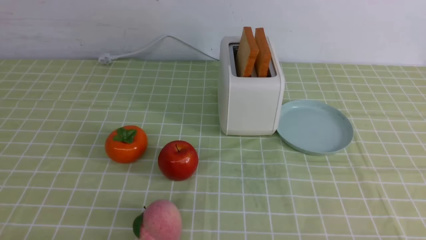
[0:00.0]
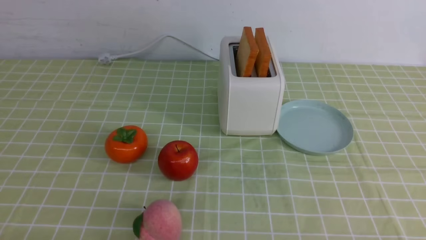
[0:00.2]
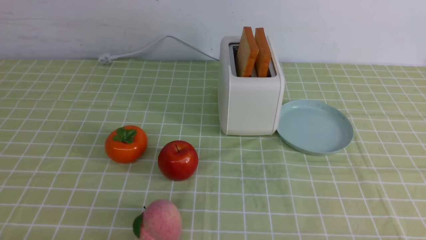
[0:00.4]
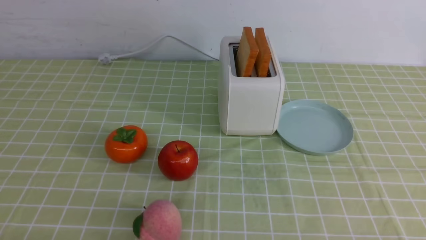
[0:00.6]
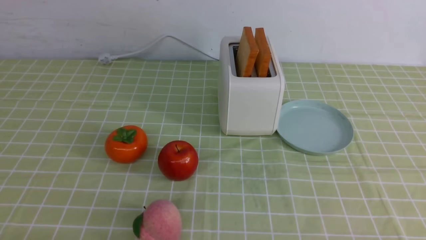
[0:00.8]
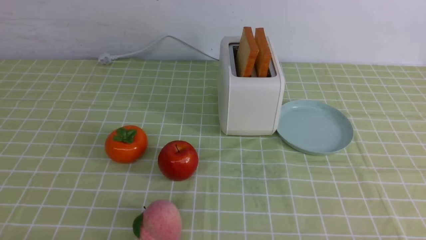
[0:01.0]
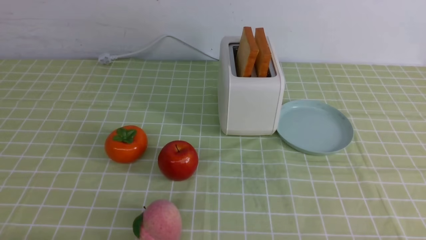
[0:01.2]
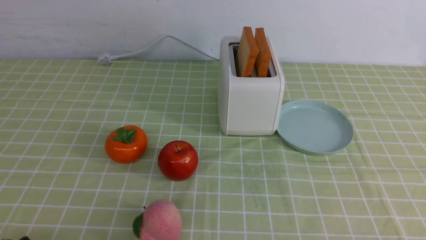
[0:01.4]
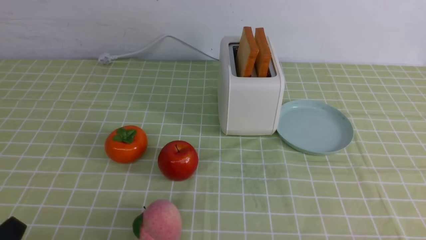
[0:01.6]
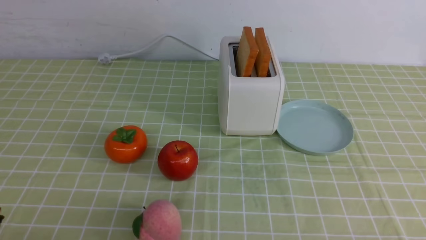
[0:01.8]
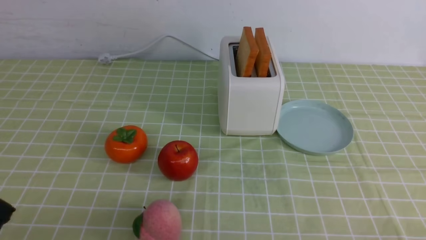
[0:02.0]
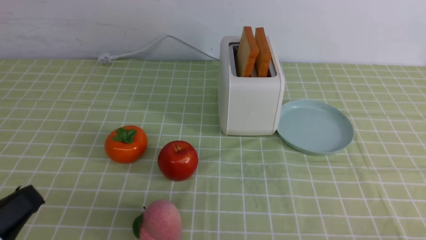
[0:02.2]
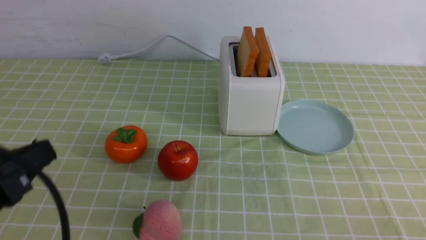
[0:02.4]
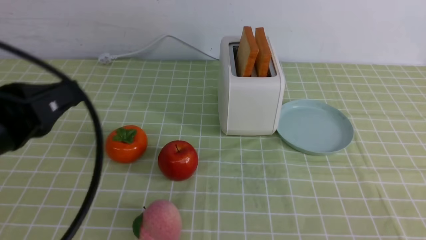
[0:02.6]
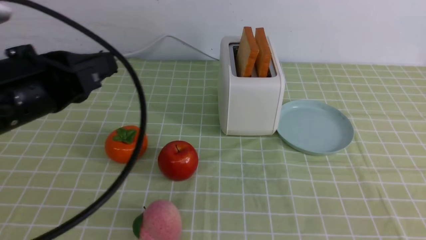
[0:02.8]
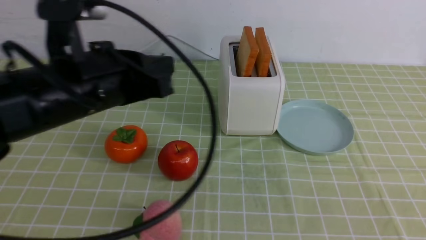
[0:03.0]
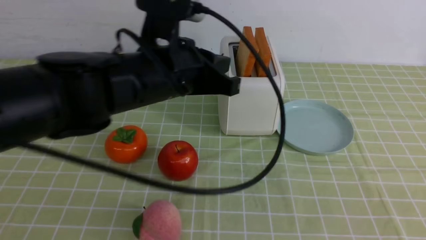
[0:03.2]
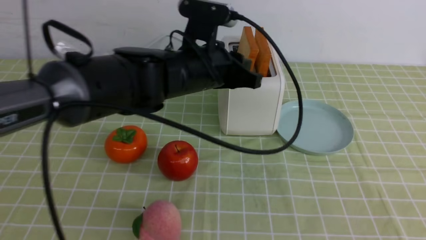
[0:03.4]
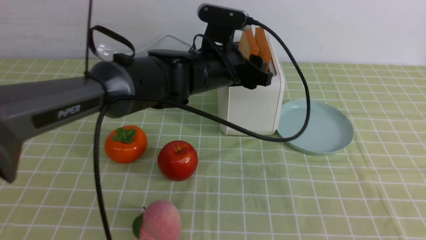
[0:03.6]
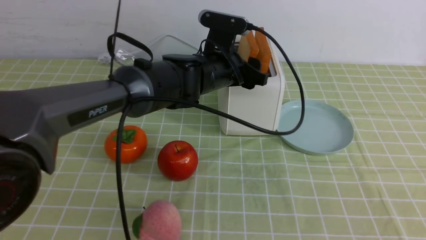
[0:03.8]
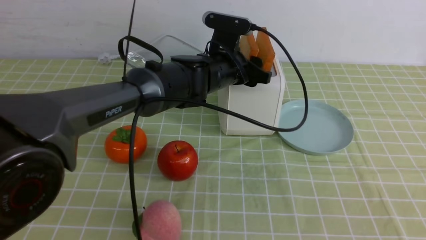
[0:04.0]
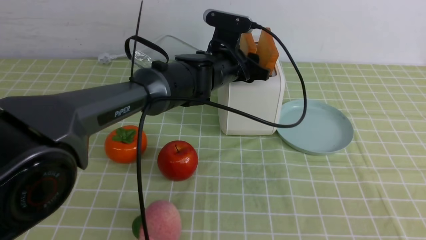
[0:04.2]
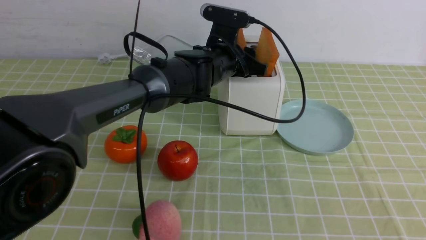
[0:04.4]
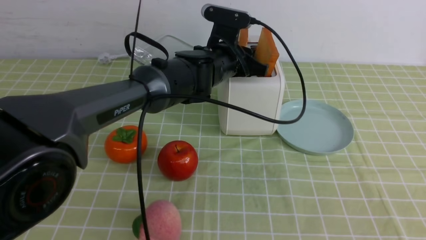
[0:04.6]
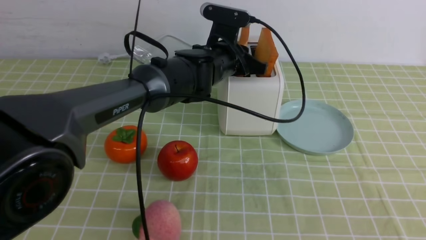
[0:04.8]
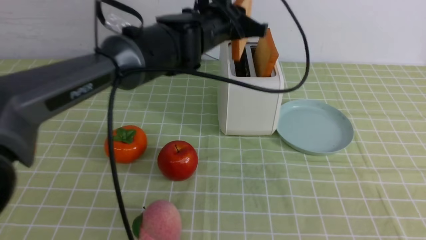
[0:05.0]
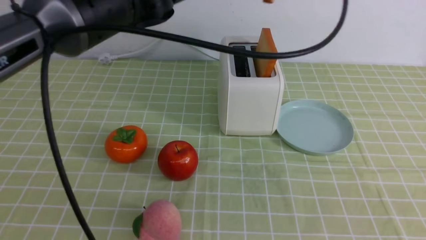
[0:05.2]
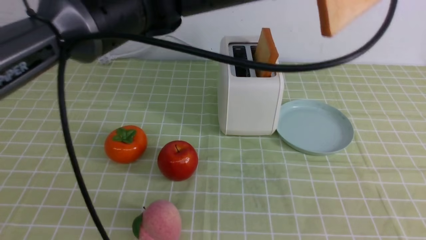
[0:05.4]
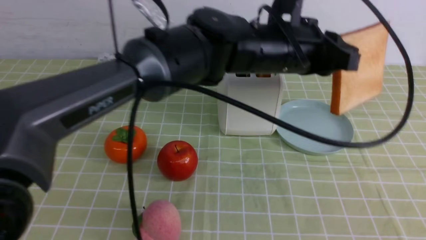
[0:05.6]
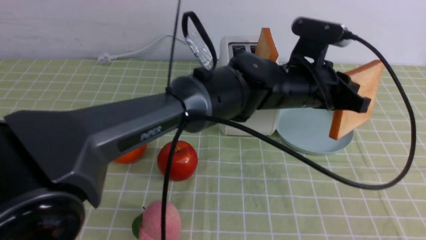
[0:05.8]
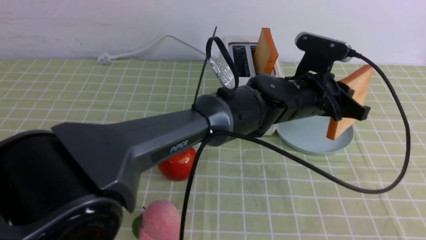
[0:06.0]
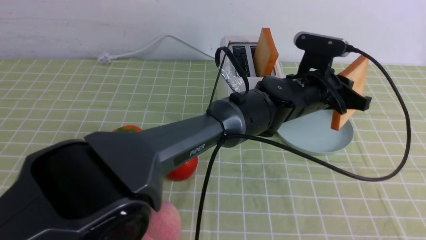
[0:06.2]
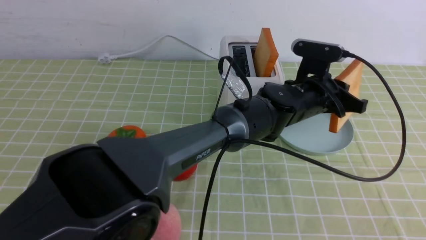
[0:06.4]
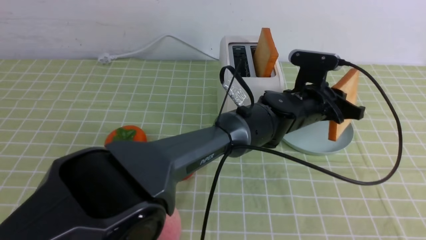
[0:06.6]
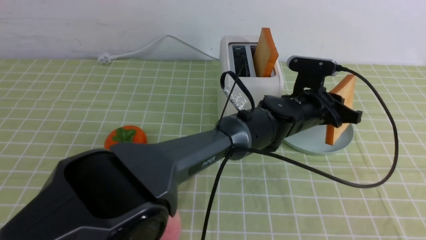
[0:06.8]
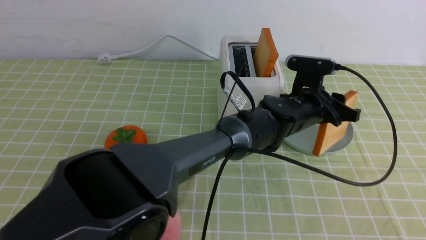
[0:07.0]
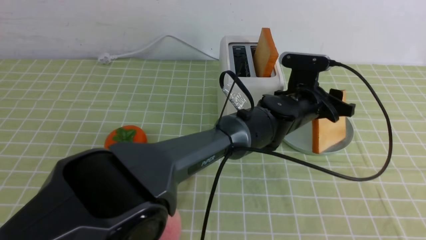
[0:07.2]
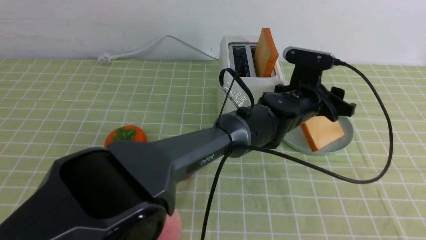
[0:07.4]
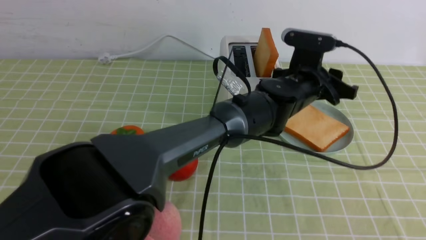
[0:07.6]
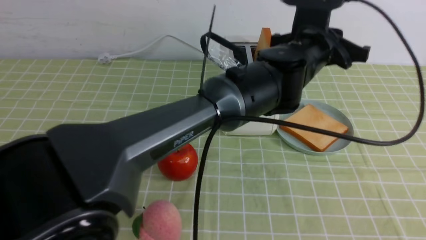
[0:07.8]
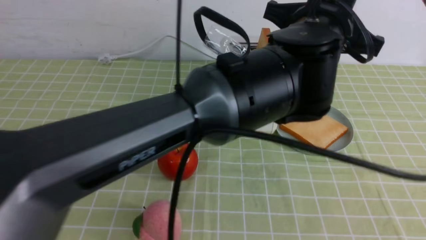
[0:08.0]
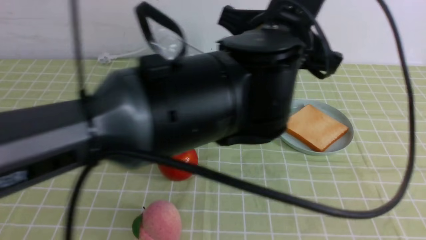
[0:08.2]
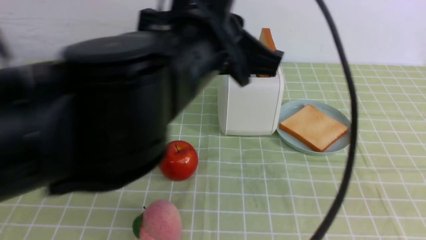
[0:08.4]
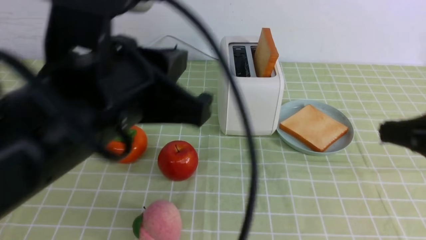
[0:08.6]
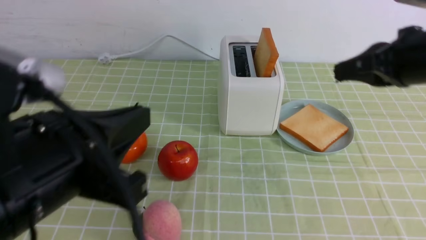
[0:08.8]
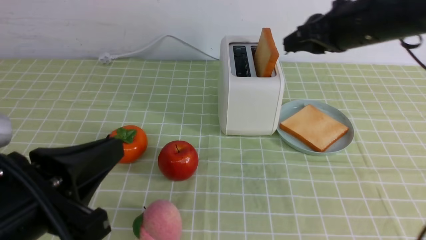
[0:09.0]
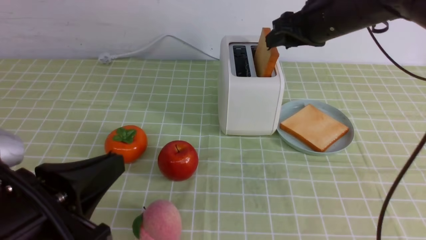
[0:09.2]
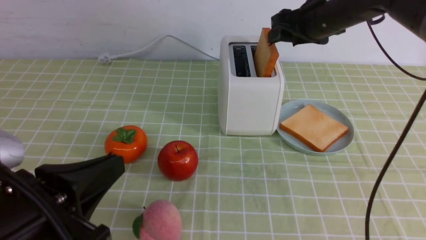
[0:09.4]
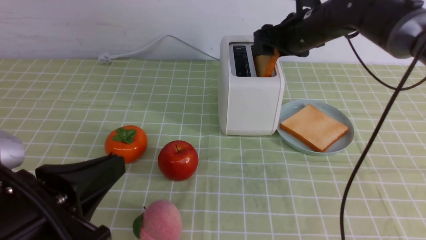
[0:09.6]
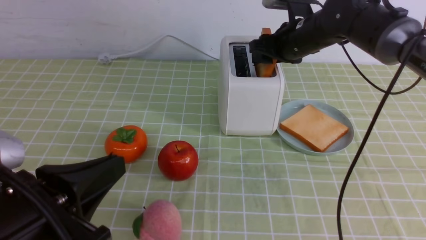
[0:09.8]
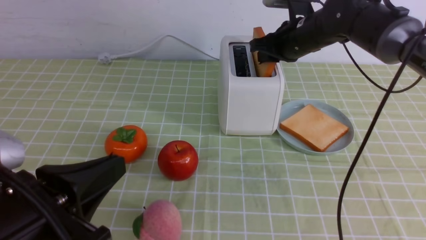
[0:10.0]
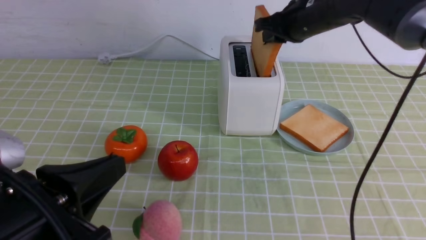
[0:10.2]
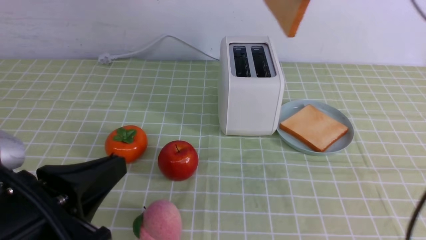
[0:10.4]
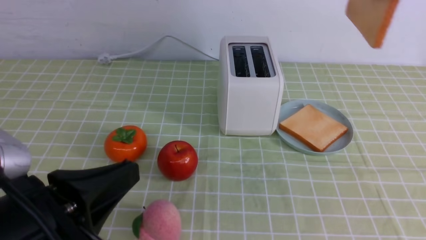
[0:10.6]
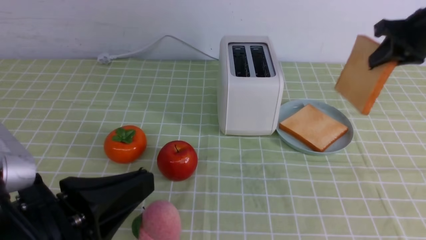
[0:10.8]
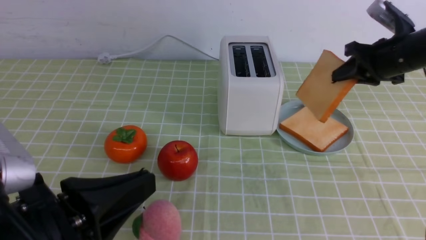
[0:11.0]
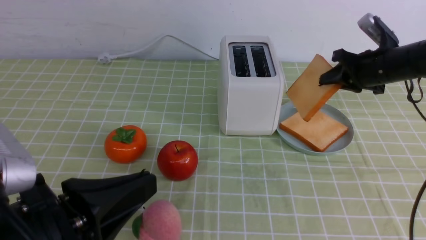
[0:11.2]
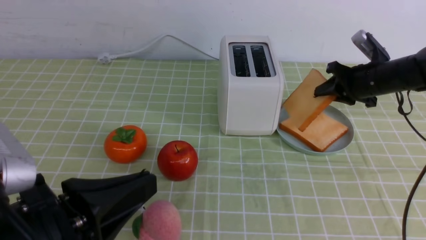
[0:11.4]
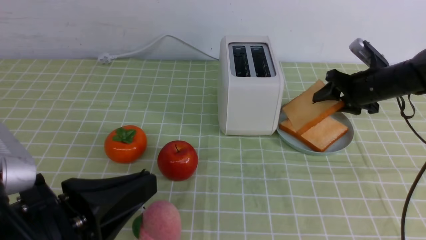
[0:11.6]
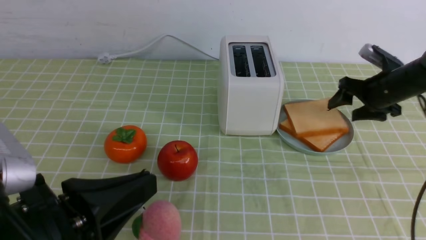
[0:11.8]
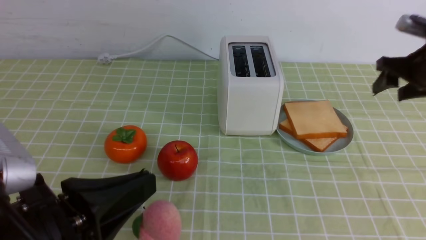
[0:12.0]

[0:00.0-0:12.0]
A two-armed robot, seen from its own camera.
Task of the whole recording: take toasted bread from bread machine on green coffee tablecloth place on plate.
Step, 0:00.0 to 0:05.0: use the left arm to take out a slice of bread.
Step, 0:05.2 to 0:07.4: use the left arm to put a slice of bread into the empty plate.
Step, 0:07.6 to 0:10.2: use the right arm to take out a slice of bread.
Step, 0:10.4 to 0:12.0: use the right arm to put a slice of bread into the plate.
0:01.6 to 0:03.0: The left gripper goes approximately 30 cm forward, upward and to the right, and closes its fingers. Meanwhile the right gripper heads upward, covering some 15 cm, and closes its fingers.
0:03.0 to 0:04.4: The left gripper shifts about 25 cm forward, to the right and downward, and opens its fingers.
0:04.4 to 0:06.0: The left gripper shifts approximately 15 cm to the right and backward, reaches approximately 15 cm upward, then returns, and closes up.
0:06.0 to 0:07.6: The left gripper opens.
0:07.6 to 0:09.0: The left gripper travels to the left and backward by roughly 40 cm, and closes up; the right gripper is displaced forward by roughly 35 cm, and opens its fingers.
0:09.0 to 0:10.4: The right gripper moves upward, some 5 cm, and opens, then closes again.
0:10.4 to 0:12.0: The right gripper shifts approximately 15 cm to the right and downward, and opens.

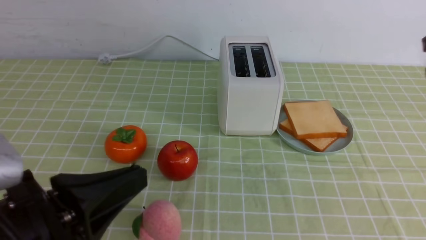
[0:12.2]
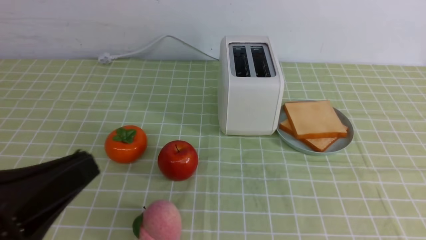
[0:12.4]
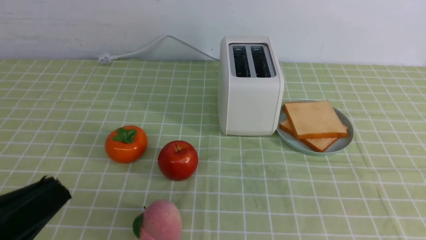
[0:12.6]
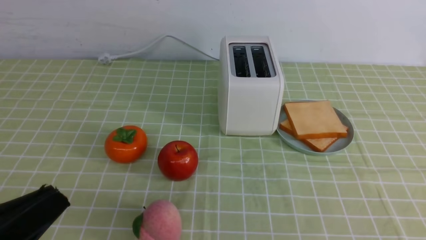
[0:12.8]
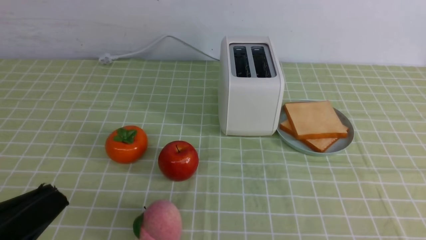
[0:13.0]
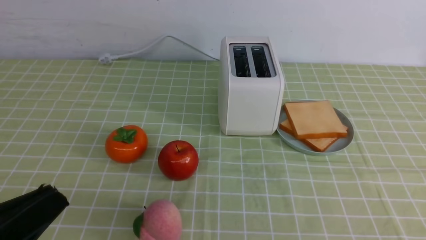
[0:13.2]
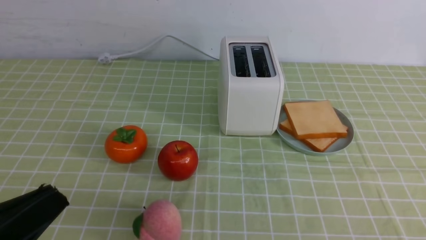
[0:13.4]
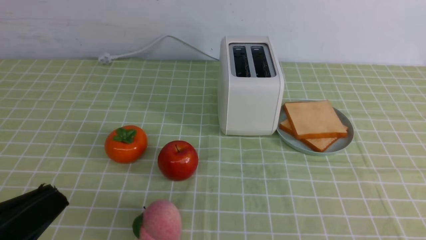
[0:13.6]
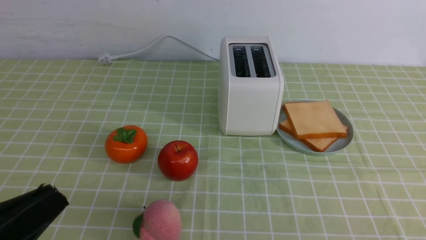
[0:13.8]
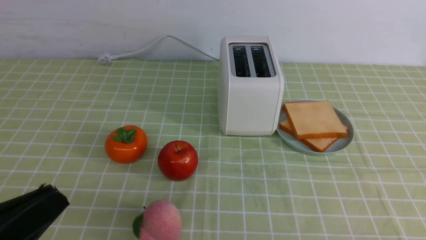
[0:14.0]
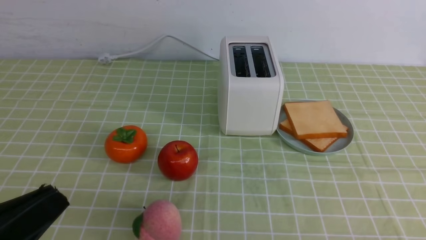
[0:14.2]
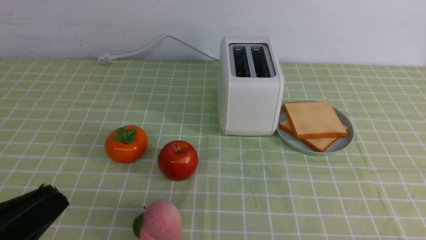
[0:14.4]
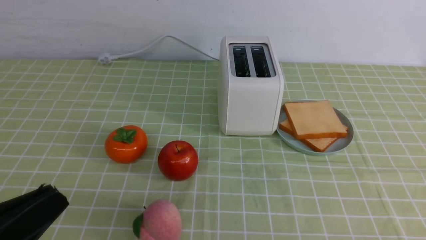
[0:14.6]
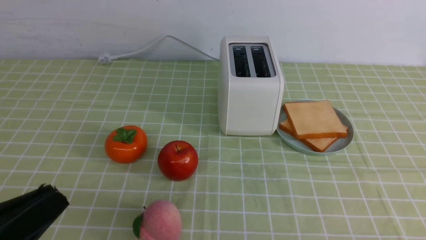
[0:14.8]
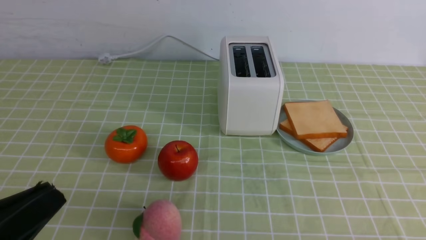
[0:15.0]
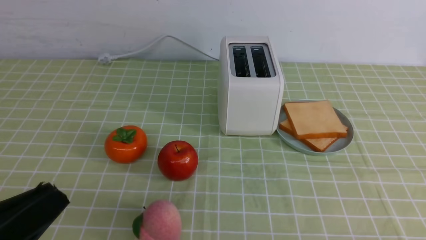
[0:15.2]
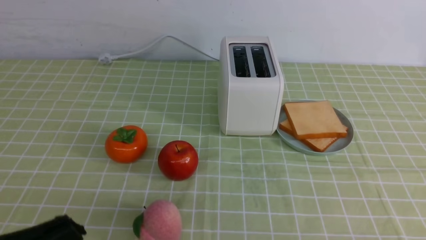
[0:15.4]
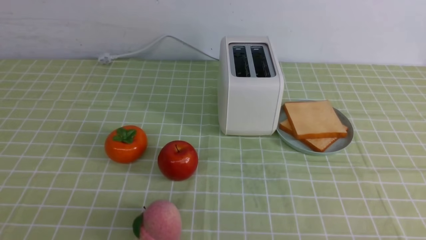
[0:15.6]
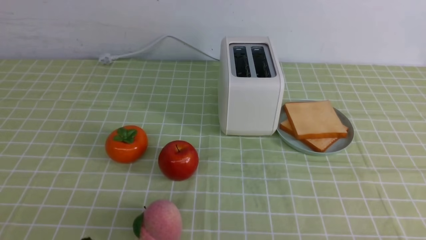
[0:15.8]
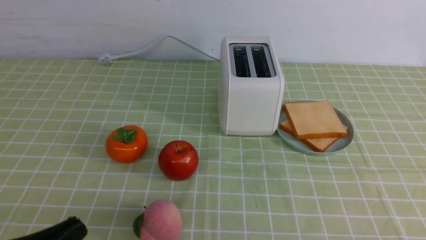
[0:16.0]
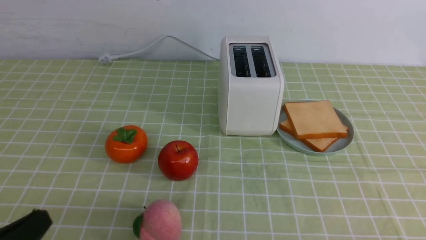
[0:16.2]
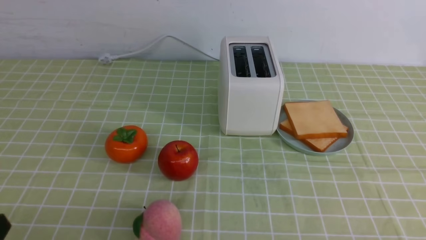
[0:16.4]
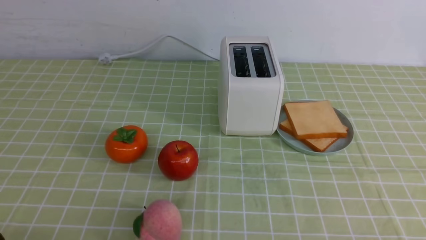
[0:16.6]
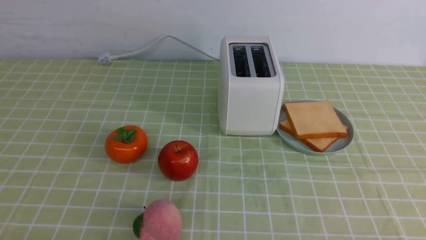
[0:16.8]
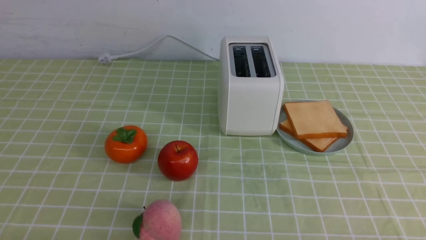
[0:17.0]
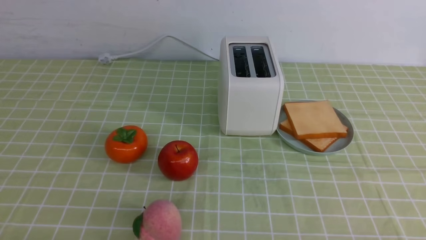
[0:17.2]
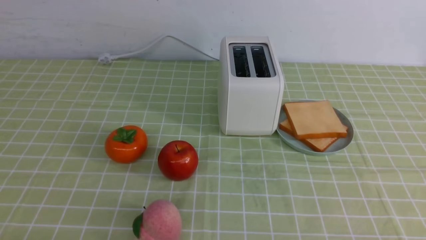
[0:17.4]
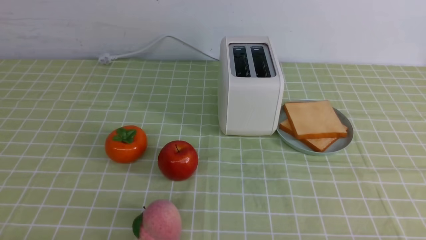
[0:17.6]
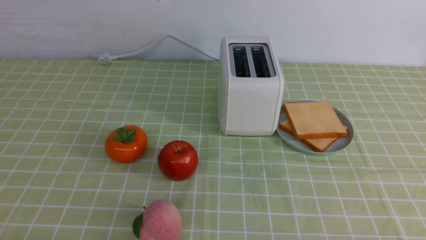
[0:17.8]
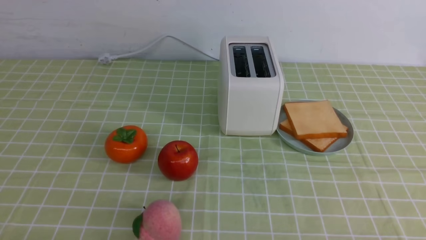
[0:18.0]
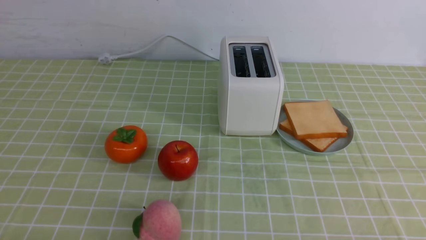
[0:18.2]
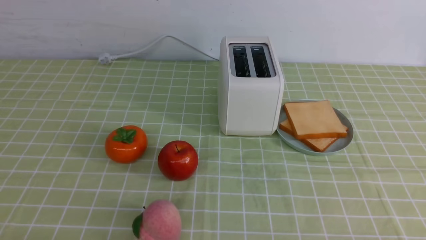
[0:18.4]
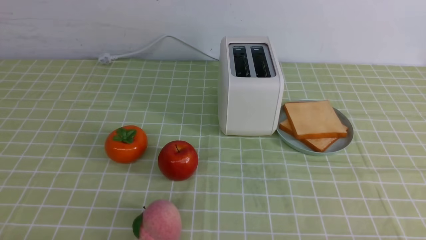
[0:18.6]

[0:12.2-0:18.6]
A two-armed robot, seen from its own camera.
Task of the whole recording: take toasted bread from bread machine on green coffee tablecloth place on plate.
0:12.2 to 0:13.8: The left gripper shifts by some 5 cm.
0:15.4 to 0:17.0: The left gripper shifts approximately 10 cm downward.
0:17.0 to 0:18.6: Both grippers stay put.
